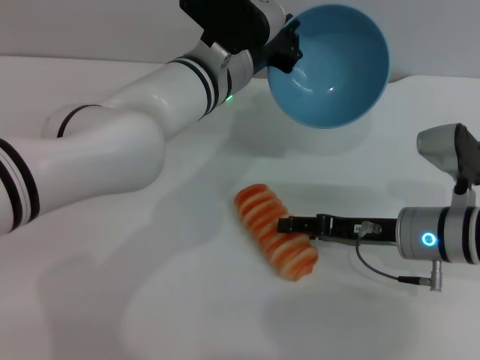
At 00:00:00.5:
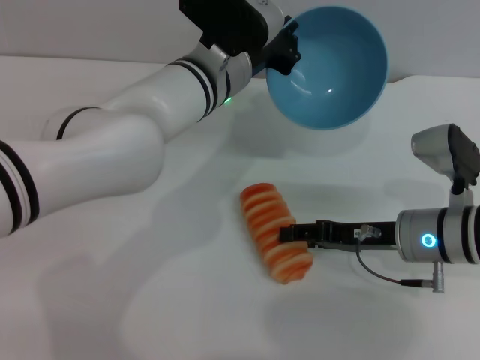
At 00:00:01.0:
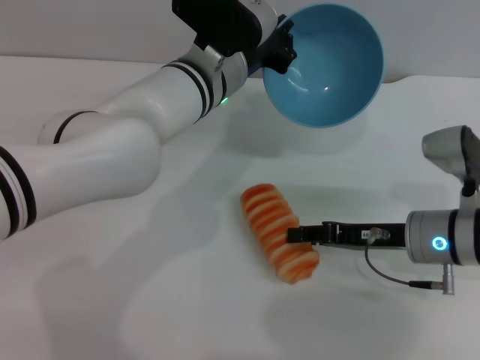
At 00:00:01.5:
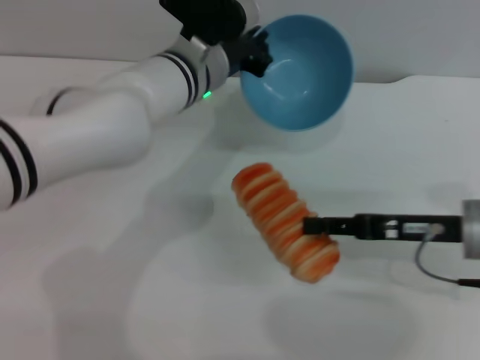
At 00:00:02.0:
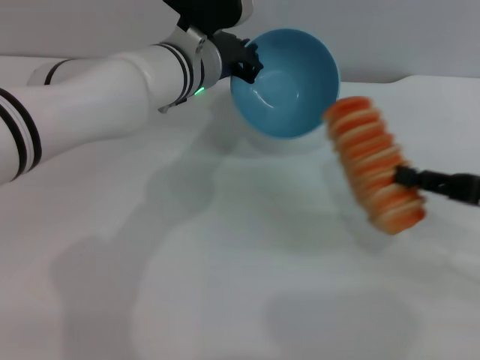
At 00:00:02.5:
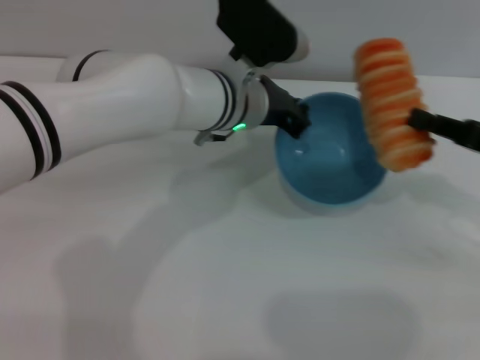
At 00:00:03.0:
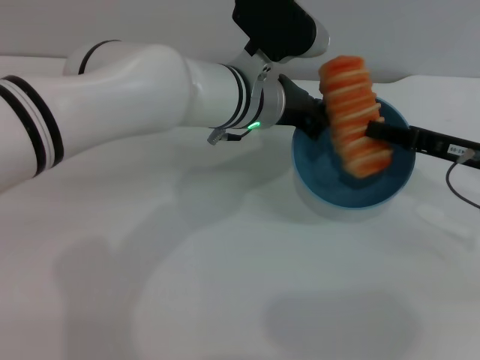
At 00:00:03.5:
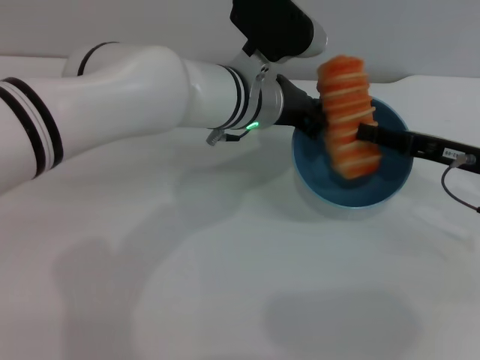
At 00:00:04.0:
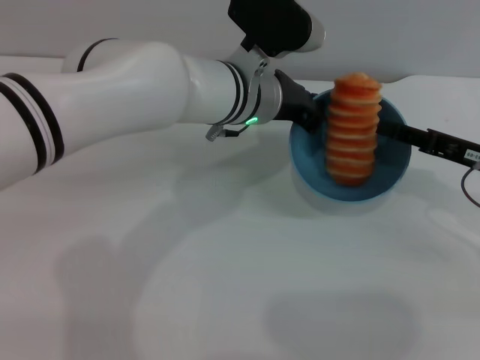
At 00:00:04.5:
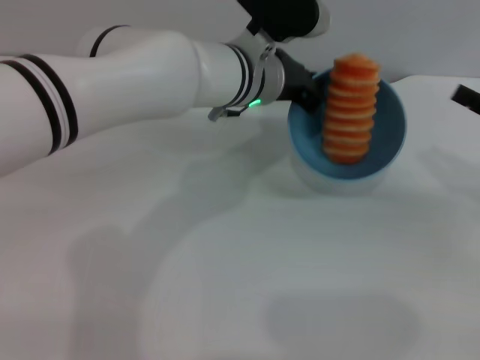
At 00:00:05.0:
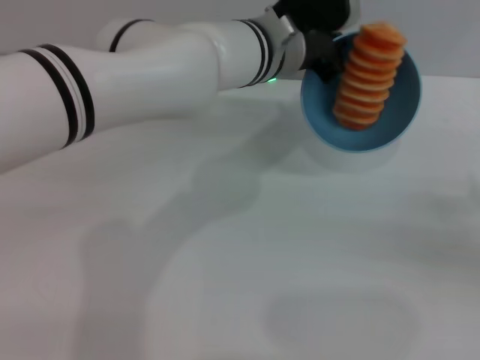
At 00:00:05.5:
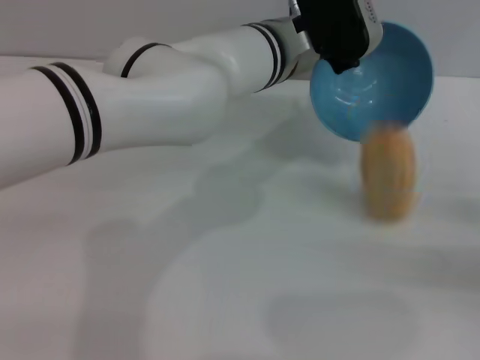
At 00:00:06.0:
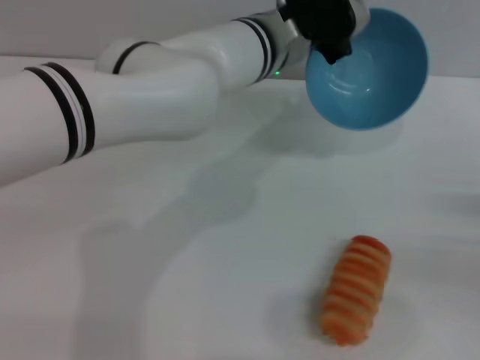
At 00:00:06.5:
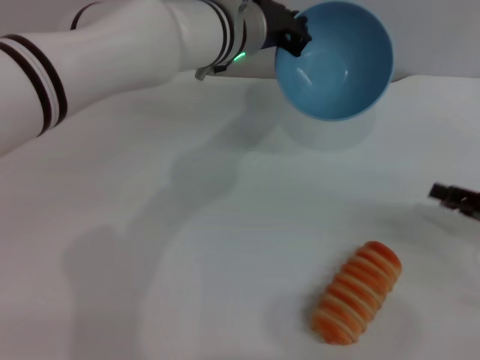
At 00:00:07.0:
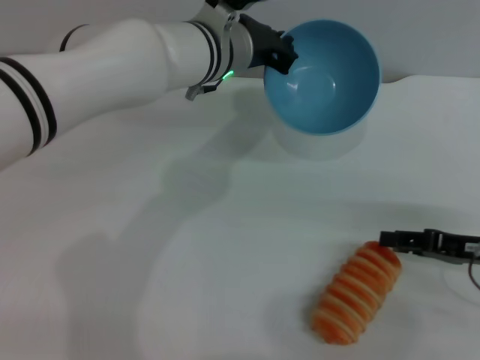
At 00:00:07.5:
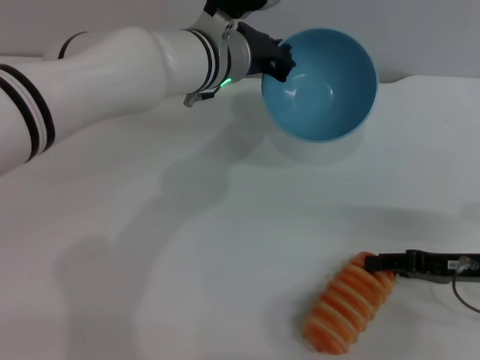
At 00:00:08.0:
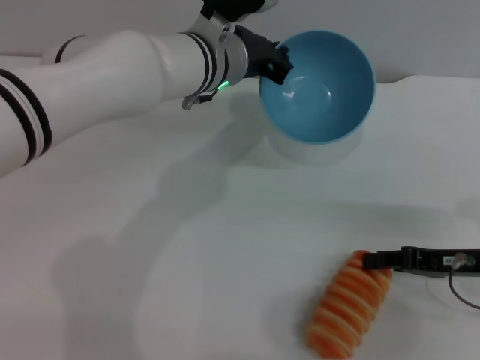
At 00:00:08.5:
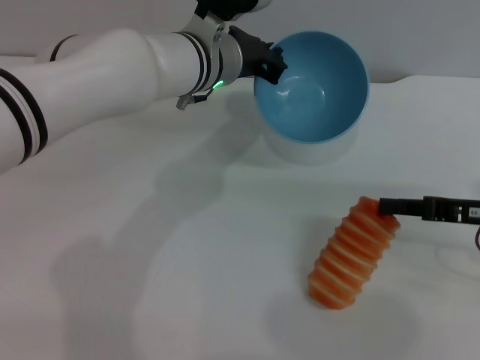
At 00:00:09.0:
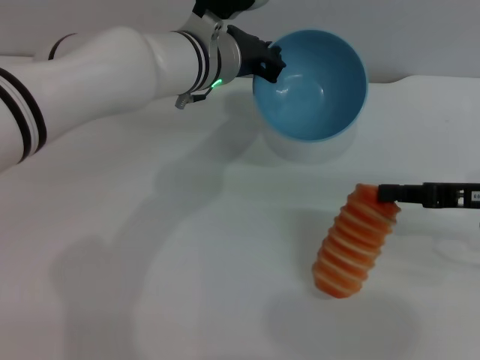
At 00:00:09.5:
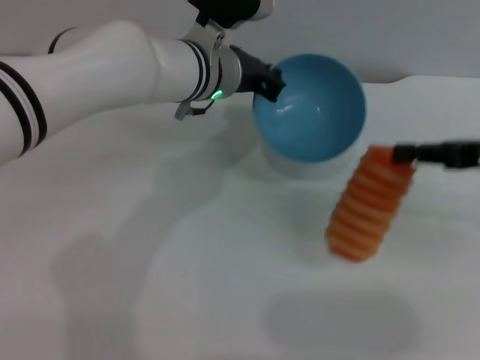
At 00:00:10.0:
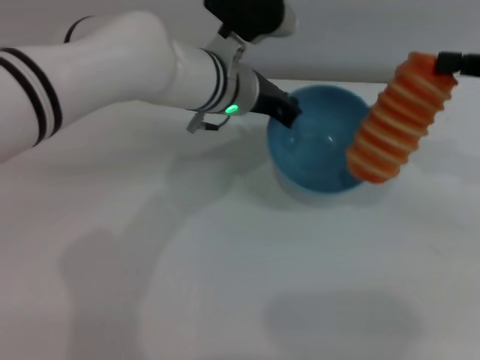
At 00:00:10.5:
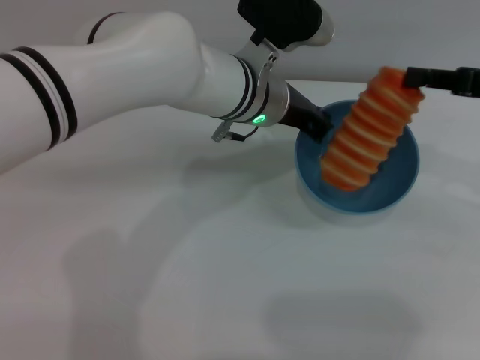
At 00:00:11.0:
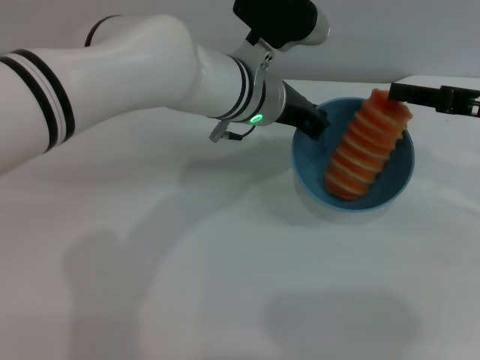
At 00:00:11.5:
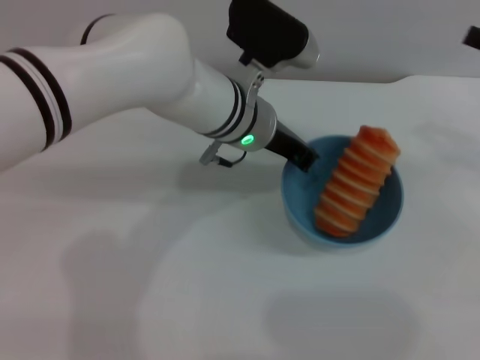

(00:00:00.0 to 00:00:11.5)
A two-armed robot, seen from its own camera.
Task of the whole recording: put the bread into the blue bowl and pour it out repeatedly.
Step, 00:00:02.0 - 00:00:04.0: Place the bread into the bowl.
Step, 00:00:04.5 - 00:00:05.5: Pour the bread out of the bowl.
Step, 00:00:06.5 - 00:00:09.5: Pick up the bread with the right gripper.
Step, 00:00:10.0 - 00:00:11.0: Place the bread into the bowl.
00:00:00.0 - 00:00:02.0: The right gripper is displaced to the right and upward by about 15 cm, and closes.
00:00:02.0 - 00:00:04.0: The left gripper goes approximately 5 cm to the right; the right gripper moves forward, about 5 cm, and opens up.
00:00:04.0 - 00:00:06.0: The right gripper heads to the right and backward, covering about 10 cm.
00:00:06.0 - 00:00:07.5: The right gripper goes approximately 10 cm to the left. Meanwhile the left gripper shifts about 5 cm to the left.
00:00:07.5 - 00:00:09.5: The right gripper shifts some 10 cm upward, and closes up.
00:00:09.5 - 00:00:11.5: The left gripper moves approximately 5 cm. Meanwhile the right gripper moves about 5 cm, and opens its fingers.

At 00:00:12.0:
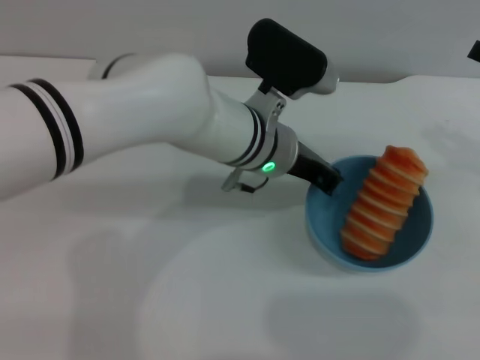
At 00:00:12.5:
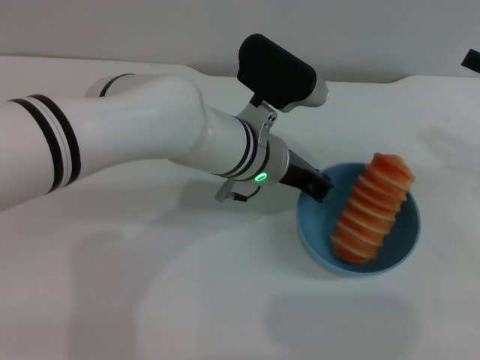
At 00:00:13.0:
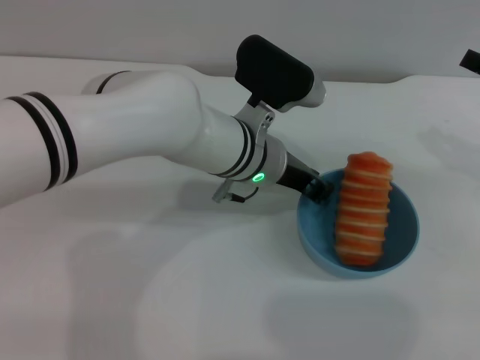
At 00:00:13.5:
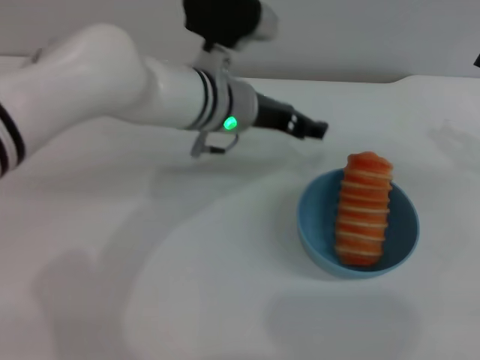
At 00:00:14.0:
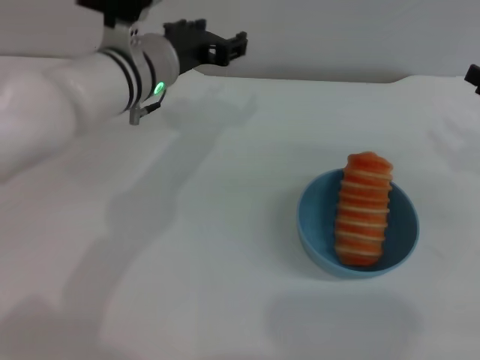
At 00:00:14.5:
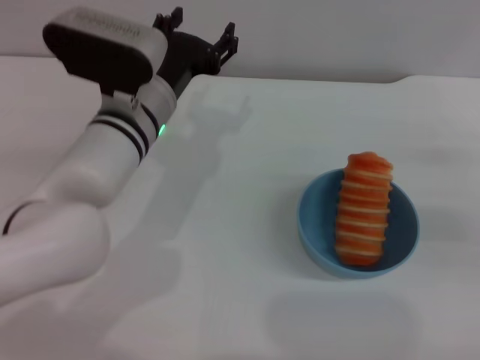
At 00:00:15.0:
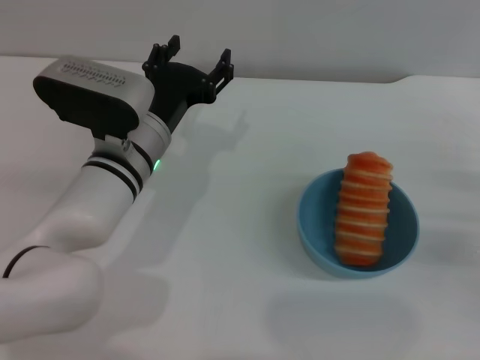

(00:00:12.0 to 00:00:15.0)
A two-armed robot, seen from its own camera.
Task of the whole recording: put the bread into the blue bowl and pour it out repeatedly.
Step, 00:00:12.0 - 00:00:13.0: Place the bowl on the table.
00:00:12.0 - 00:00:13.5: The left gripper shifts approximately 5 cm to the left, and opens its fingers.
00:00:13.5 - 00:00:15.0: The left gripper heads downward, to the left and backward, covering approximately 10 cm. Meanwhile the right gripper shifts about 10 cm downward.
